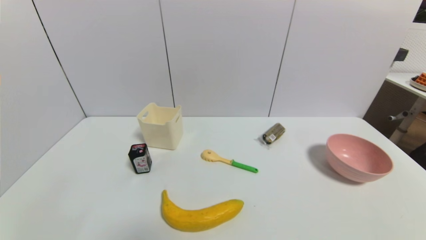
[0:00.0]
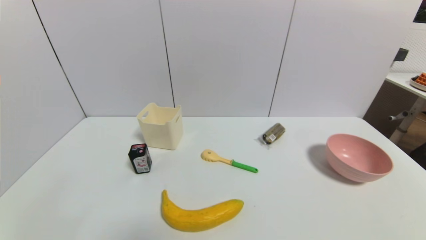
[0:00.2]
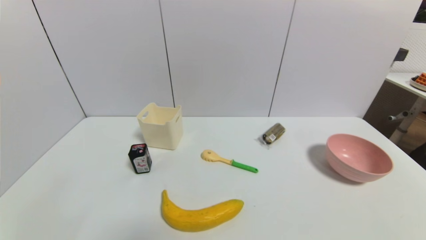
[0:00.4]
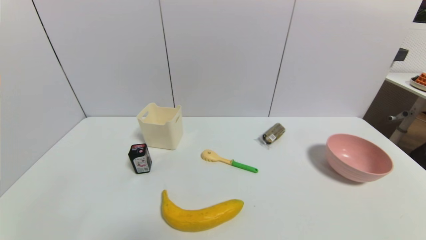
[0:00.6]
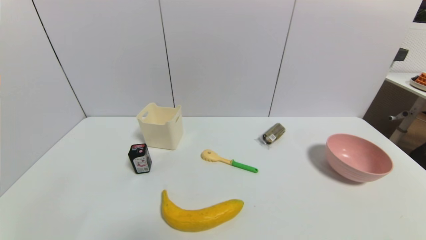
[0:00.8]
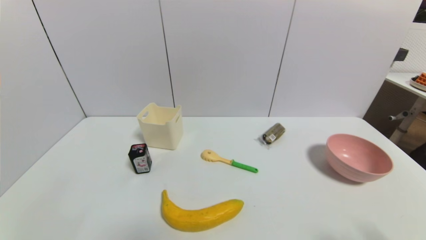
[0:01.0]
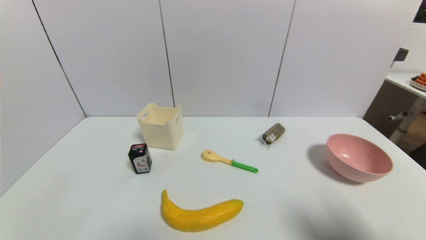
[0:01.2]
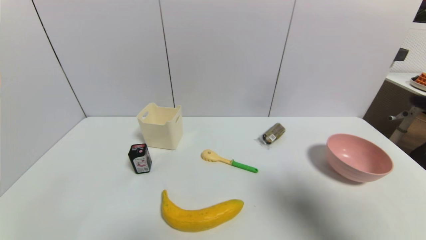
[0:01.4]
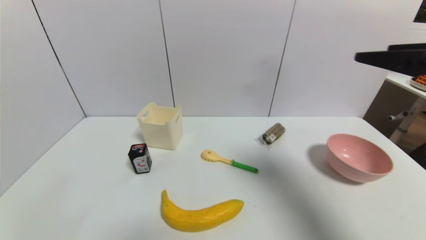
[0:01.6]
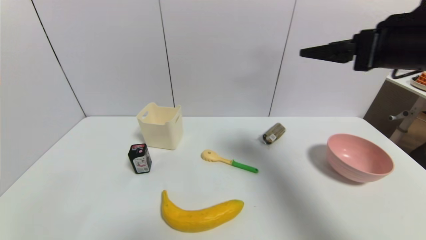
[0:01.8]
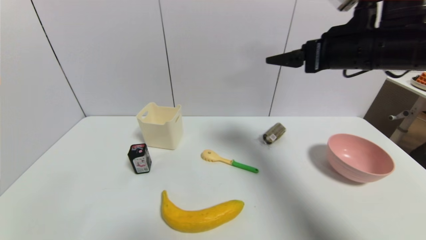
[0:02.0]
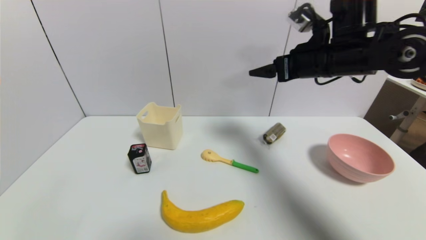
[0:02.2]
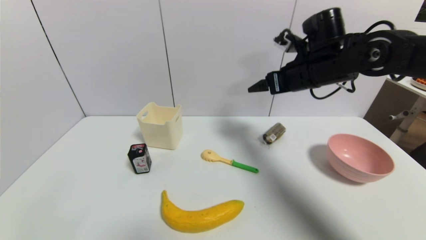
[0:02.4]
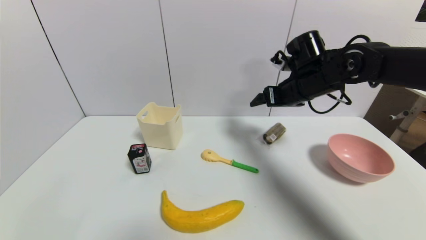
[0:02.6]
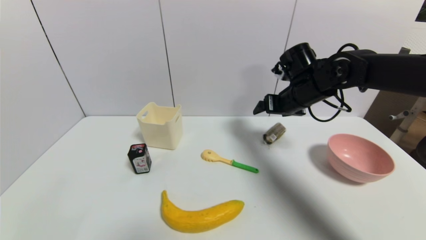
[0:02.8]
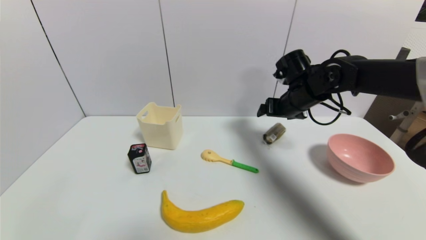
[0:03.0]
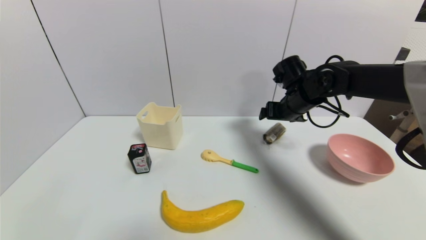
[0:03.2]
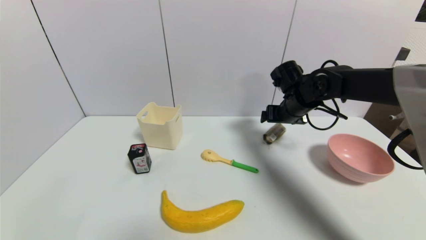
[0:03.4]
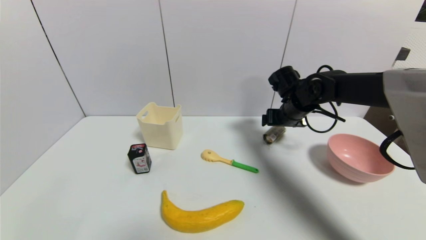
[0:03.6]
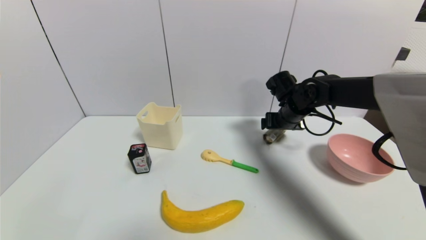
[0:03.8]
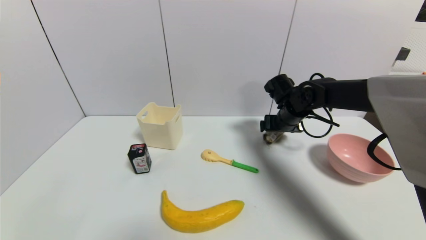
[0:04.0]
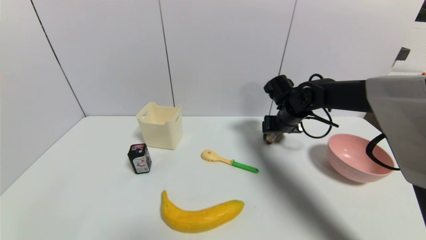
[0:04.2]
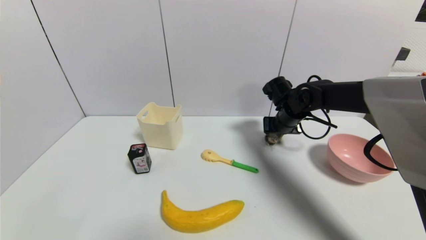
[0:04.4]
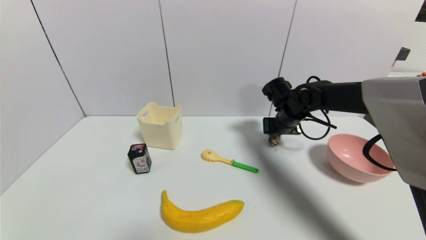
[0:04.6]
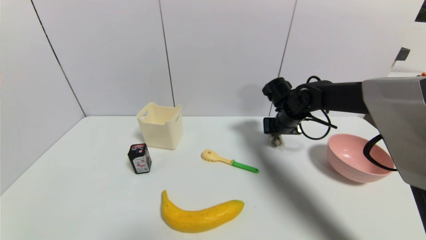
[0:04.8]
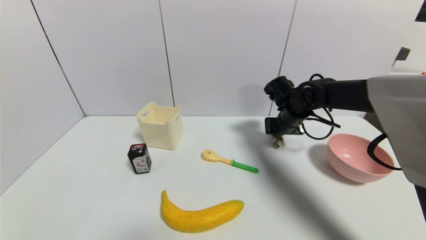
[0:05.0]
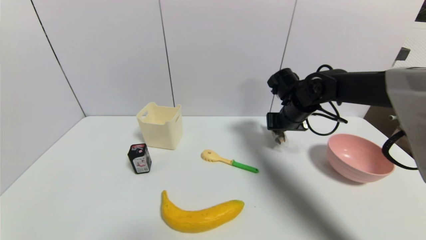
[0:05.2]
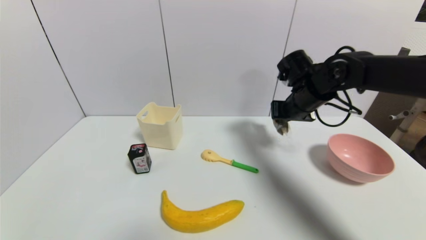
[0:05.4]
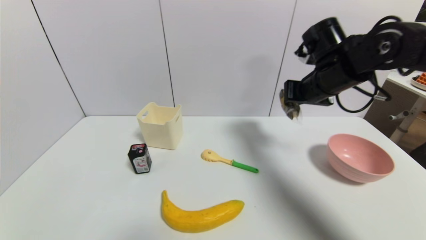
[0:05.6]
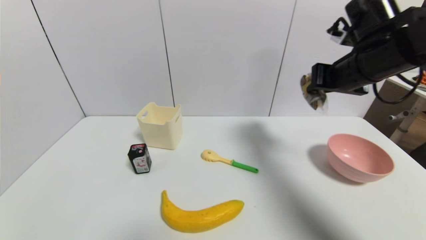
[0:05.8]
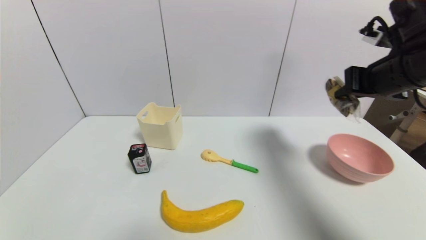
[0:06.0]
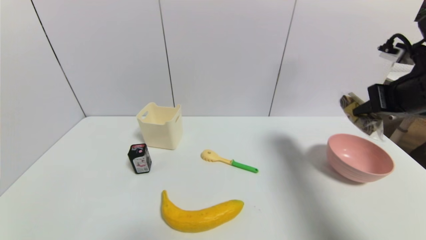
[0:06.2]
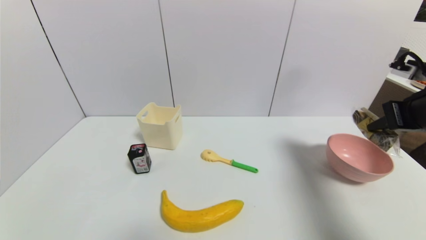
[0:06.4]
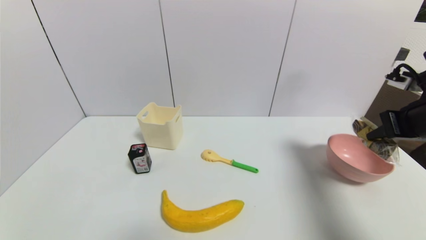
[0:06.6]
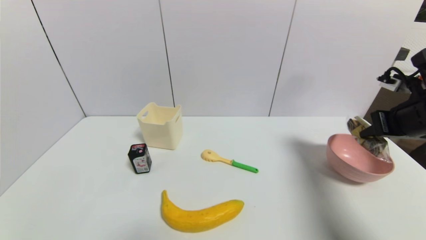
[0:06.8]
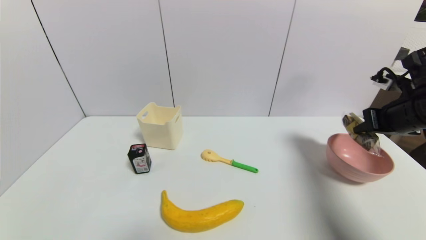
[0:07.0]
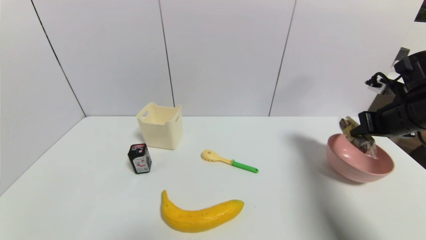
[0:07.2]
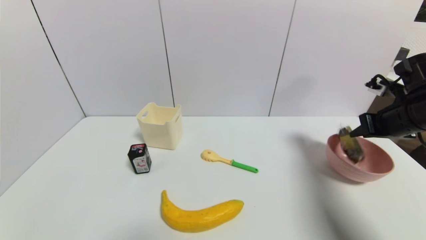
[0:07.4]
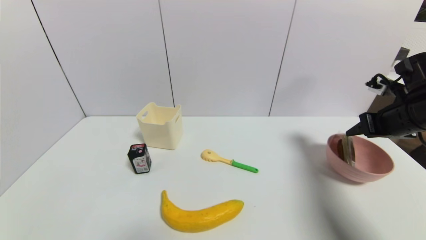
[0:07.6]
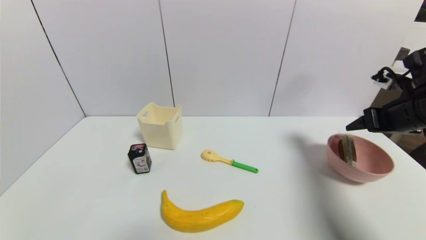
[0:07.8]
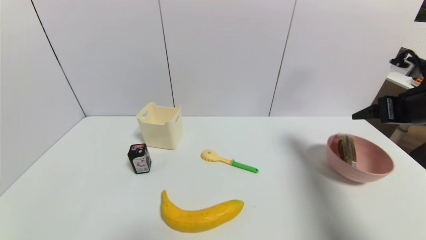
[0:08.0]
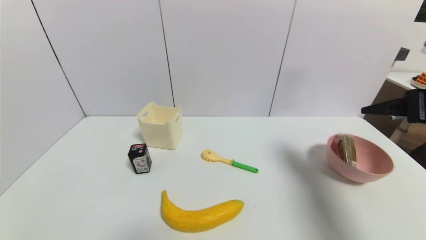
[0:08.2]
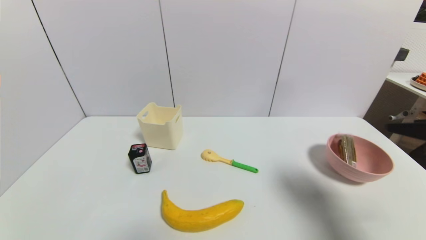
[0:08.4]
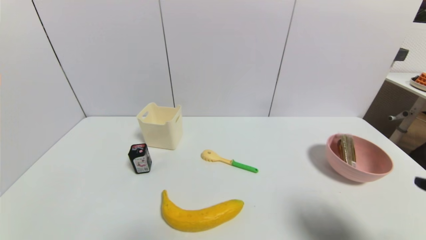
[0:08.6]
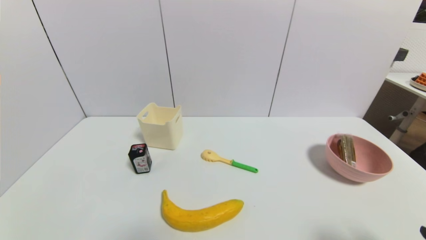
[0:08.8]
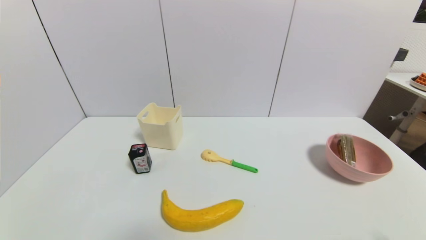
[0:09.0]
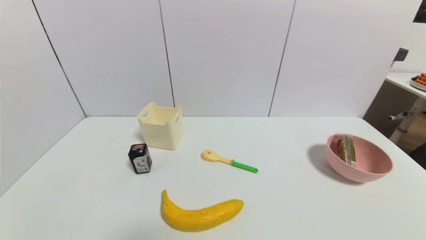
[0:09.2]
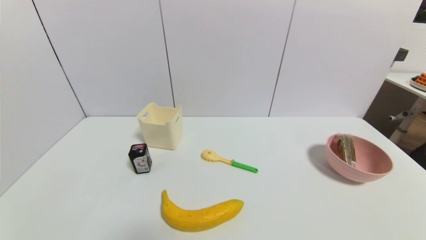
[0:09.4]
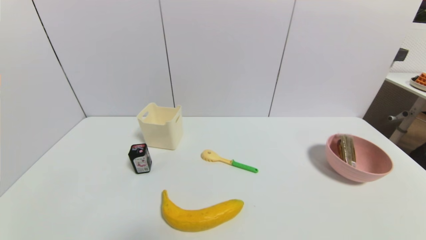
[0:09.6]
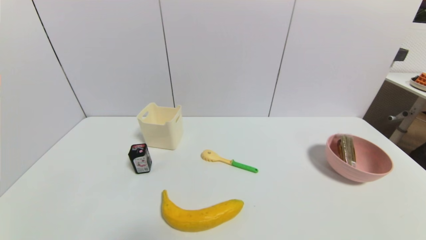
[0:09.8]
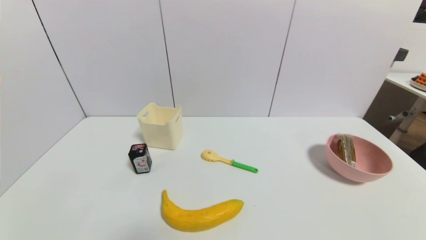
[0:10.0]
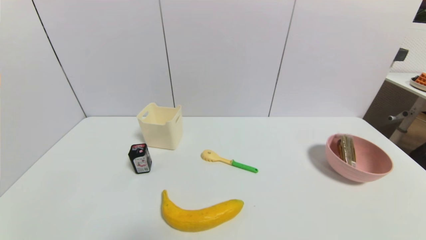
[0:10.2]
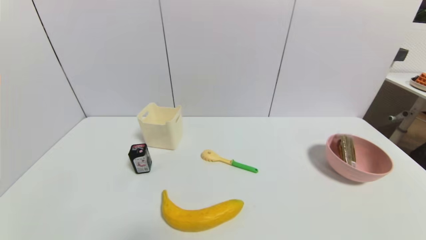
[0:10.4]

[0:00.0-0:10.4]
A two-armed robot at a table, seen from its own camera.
Task of the whole recording: use a gripper to pick the target object and place on the pink bowl.
Step, 0:00.0 to 0:04.6: Grasp the chocolate with the right gripper.
Step, 0:04.8 to 0:07.6: Place the chocolate on the pink bowl with the right gripper.
0:00.0 to 0:01.4: The right gripper heads upward and forward, covering approximately 25 cm.
0:01.4 to 0:03.0: The right gripper is displaced forward and to the left by some 30 cm.
0:03.0 to 0:04.4: The right gripper shifts roughly 5 cm downward, and closes its fingers.
0:04.4 to 0:06.0: The right gripper shifts roughly 25 cm upward, backward and to the right, and closes.
0:06.0 to 0:07.4: The right gripper goes about 10 cm downward and to the right.
0:07.4 to 0:09.0: The right gripper goes approximately 30 cm backward, and opens its fingers.

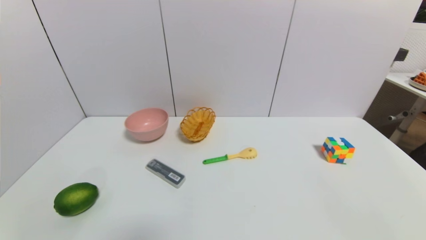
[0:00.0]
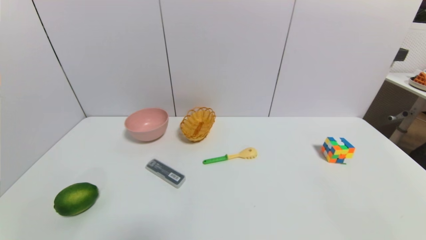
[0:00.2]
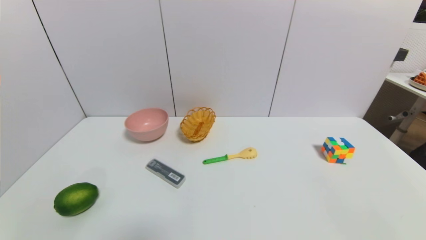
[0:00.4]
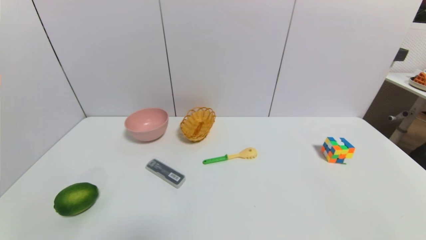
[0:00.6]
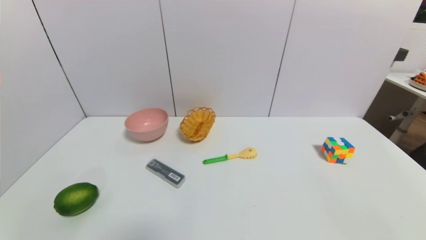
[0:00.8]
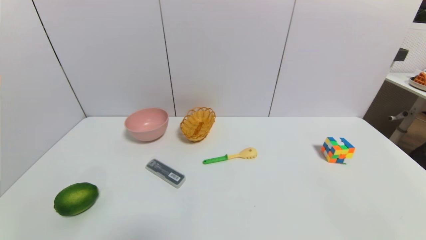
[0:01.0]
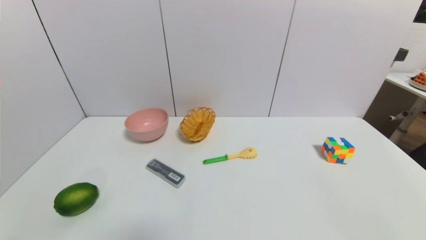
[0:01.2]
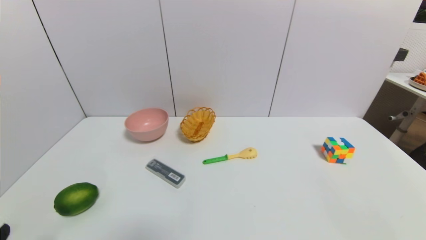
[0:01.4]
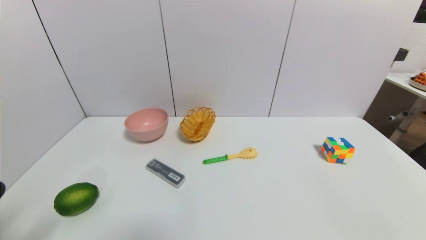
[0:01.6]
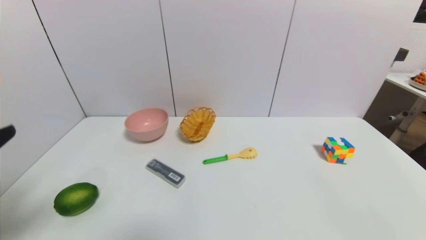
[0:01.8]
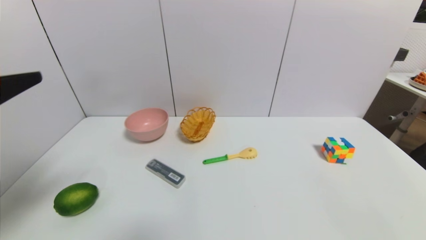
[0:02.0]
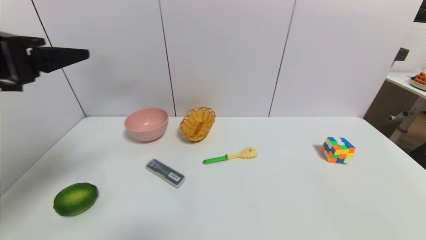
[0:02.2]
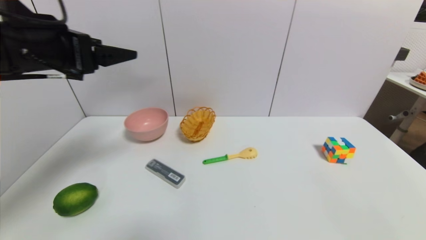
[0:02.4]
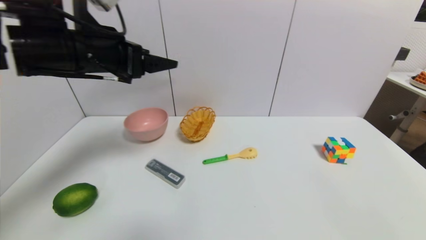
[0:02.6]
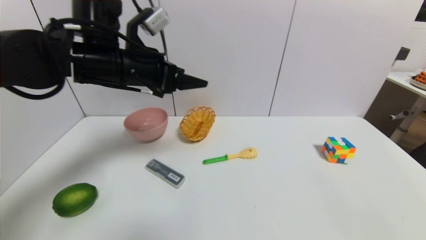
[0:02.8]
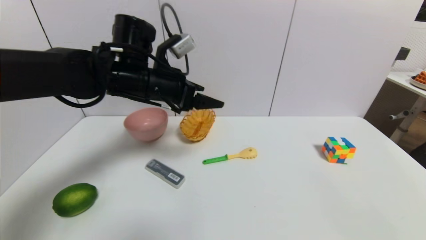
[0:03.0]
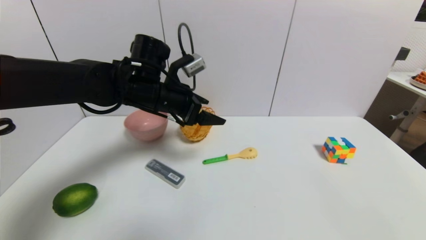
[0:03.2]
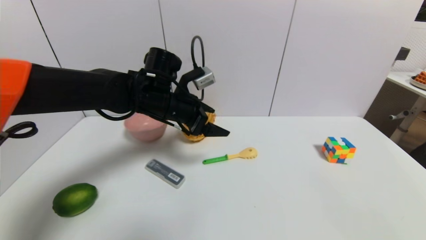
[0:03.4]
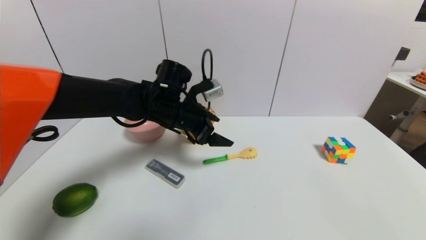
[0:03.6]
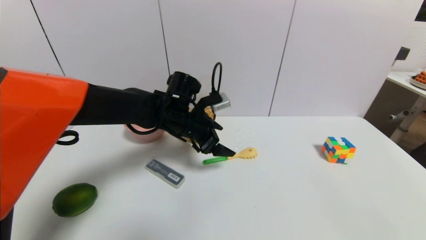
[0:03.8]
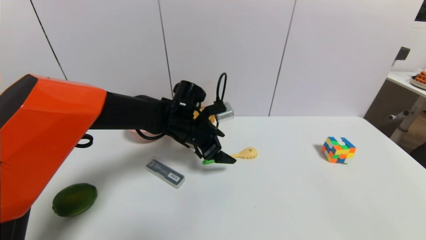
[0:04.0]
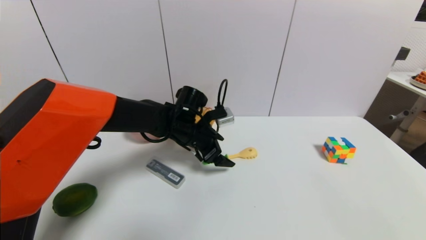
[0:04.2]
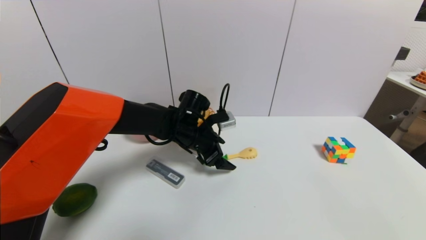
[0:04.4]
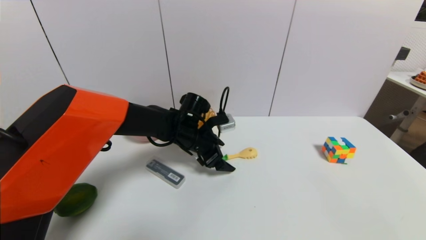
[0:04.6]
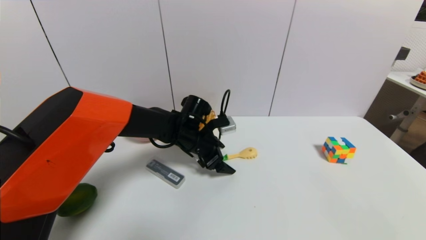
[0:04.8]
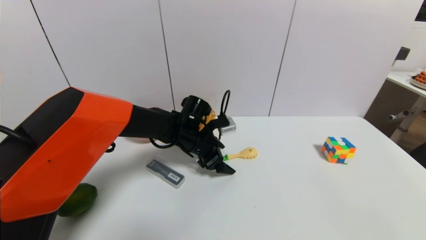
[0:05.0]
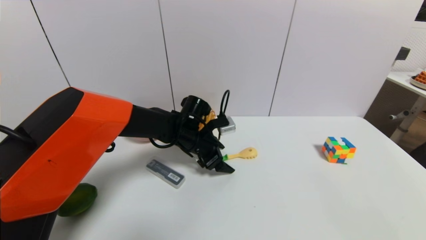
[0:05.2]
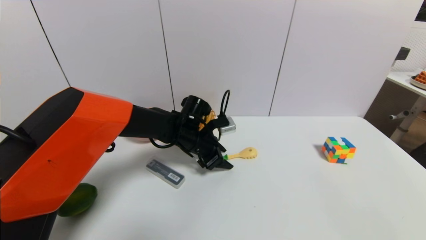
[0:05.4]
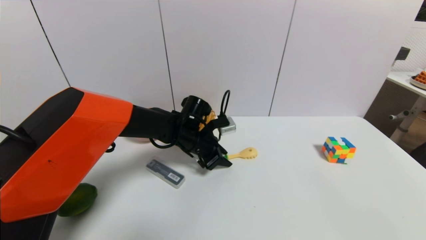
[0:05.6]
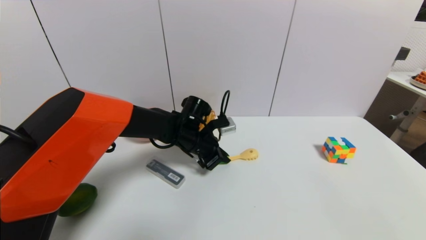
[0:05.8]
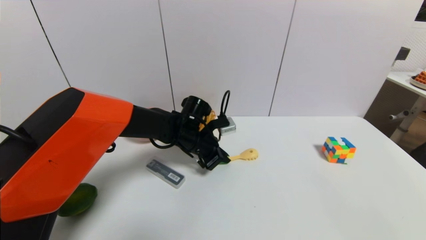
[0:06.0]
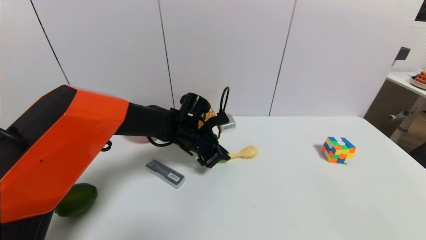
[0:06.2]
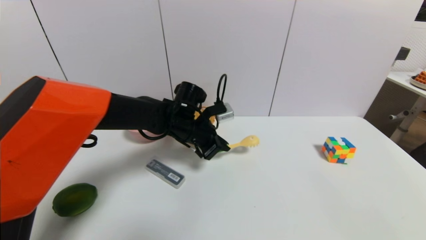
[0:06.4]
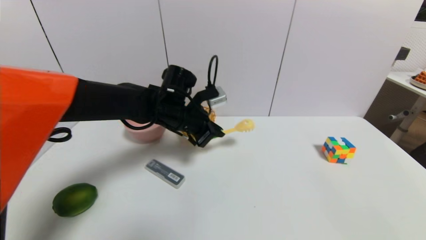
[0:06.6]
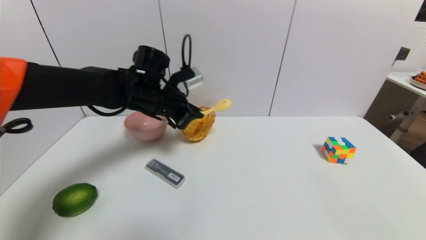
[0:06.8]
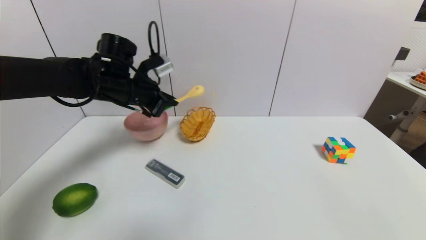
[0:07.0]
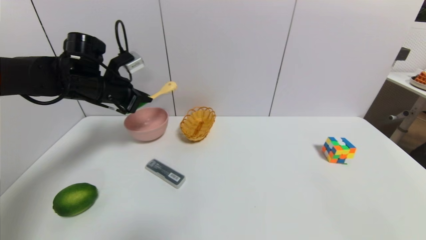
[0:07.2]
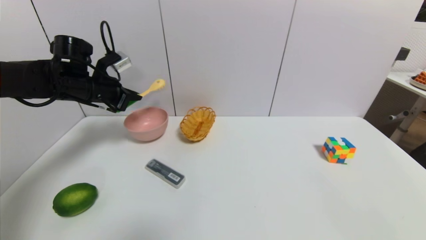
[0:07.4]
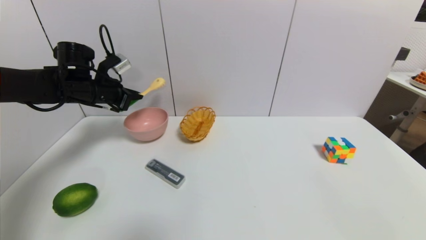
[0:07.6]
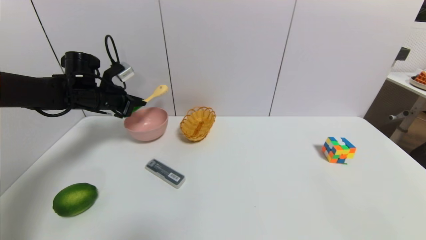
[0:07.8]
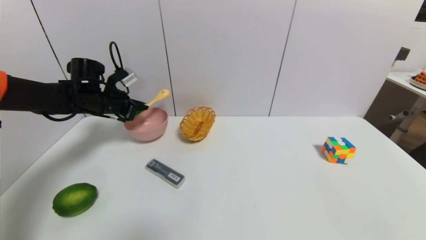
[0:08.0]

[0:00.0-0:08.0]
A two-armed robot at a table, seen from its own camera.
Task of the whole recording: use a gripper to pick the target object and place on the pink bowl.
Step, 0:00.0 to 0:05.8: Grasp the back scratcher with the left gripper.
0:01.6 to 0:03.2: The left gripper shifts some 35 cm forward and to the right.
0:03.2 to 0:04.8: The left gripper goes approximately 15 cm downward and to the right.
0:04.8 to 0:06.4: The left gripper closes.
0:06.4 to 0:08.0: The left gripper travels to the left by about 25 cm.
